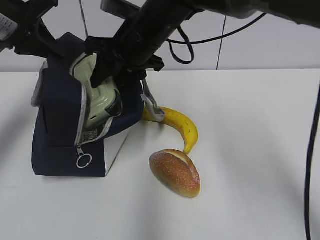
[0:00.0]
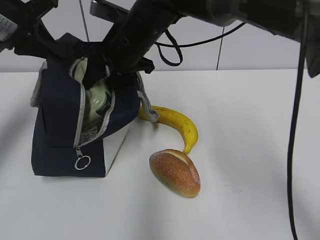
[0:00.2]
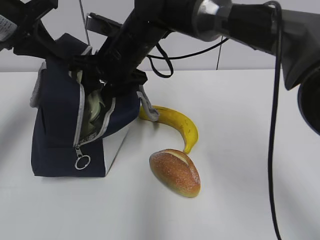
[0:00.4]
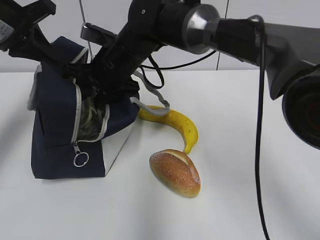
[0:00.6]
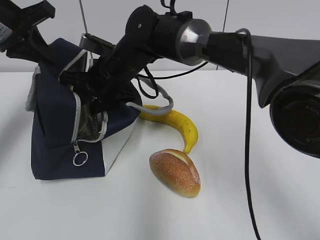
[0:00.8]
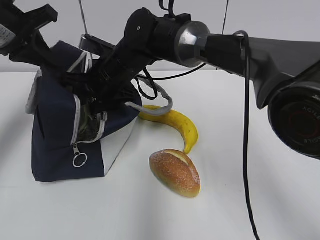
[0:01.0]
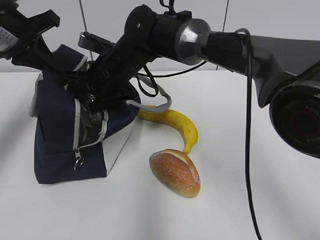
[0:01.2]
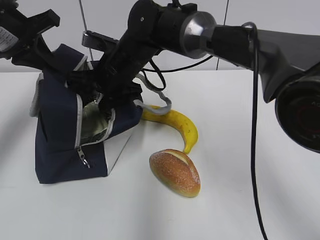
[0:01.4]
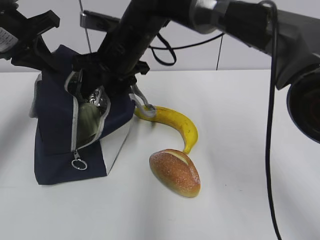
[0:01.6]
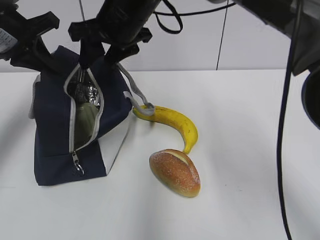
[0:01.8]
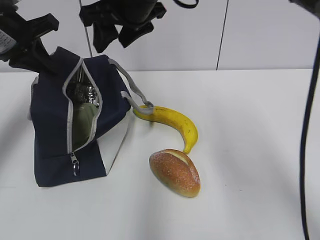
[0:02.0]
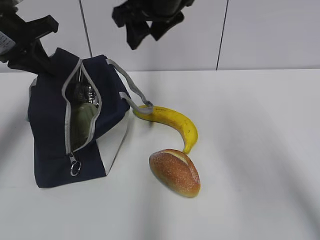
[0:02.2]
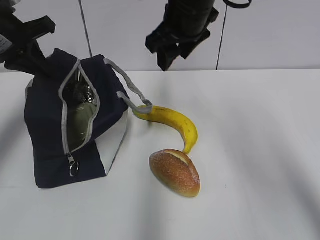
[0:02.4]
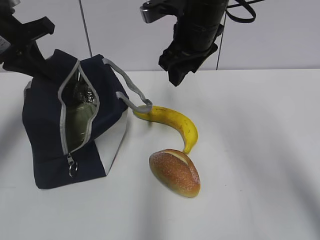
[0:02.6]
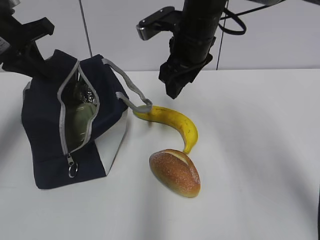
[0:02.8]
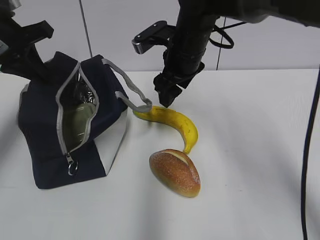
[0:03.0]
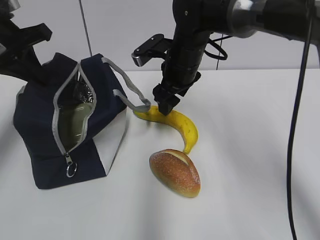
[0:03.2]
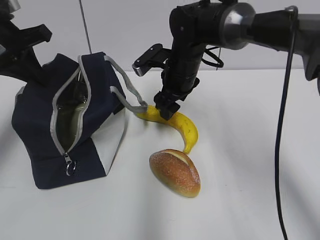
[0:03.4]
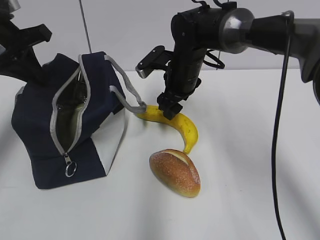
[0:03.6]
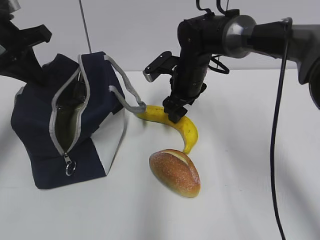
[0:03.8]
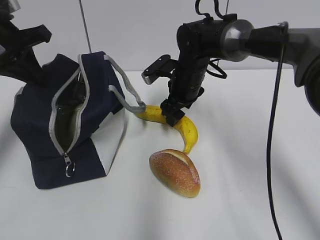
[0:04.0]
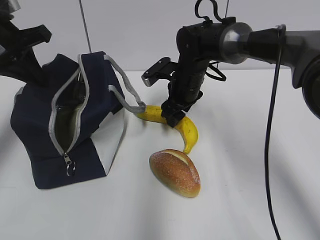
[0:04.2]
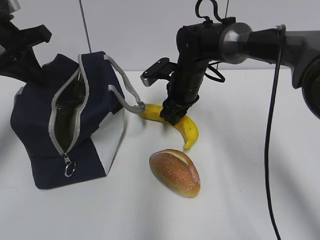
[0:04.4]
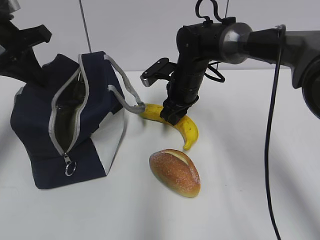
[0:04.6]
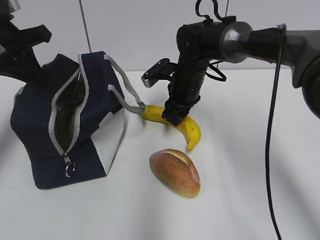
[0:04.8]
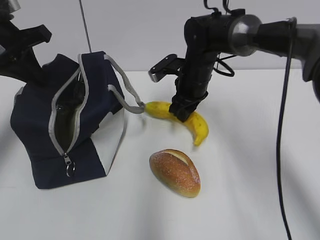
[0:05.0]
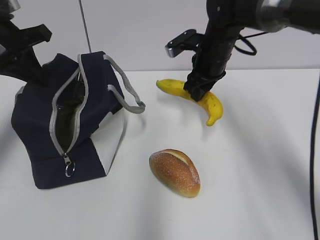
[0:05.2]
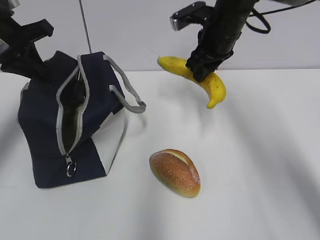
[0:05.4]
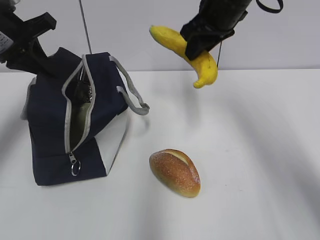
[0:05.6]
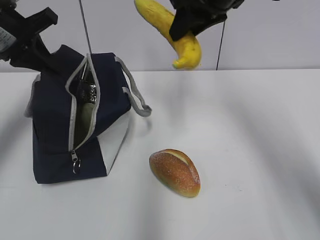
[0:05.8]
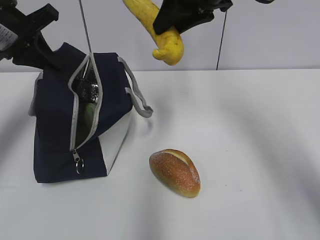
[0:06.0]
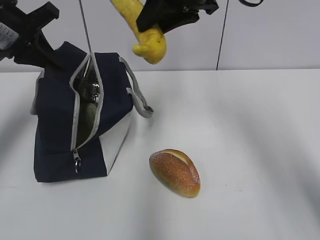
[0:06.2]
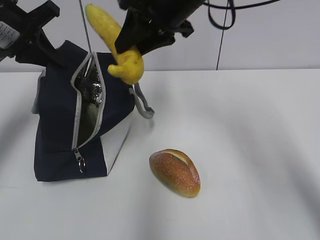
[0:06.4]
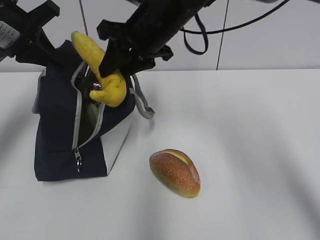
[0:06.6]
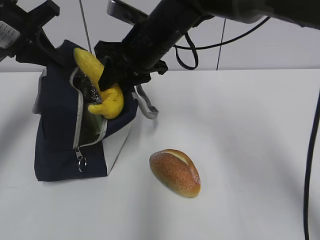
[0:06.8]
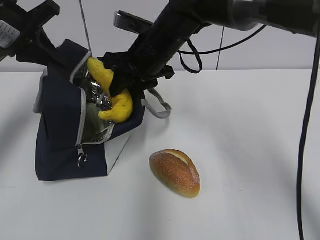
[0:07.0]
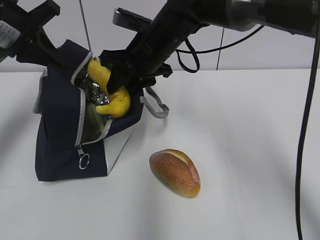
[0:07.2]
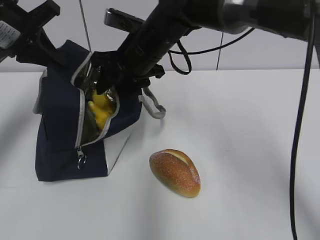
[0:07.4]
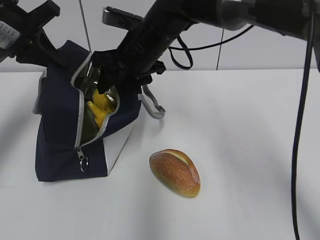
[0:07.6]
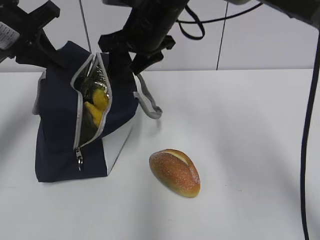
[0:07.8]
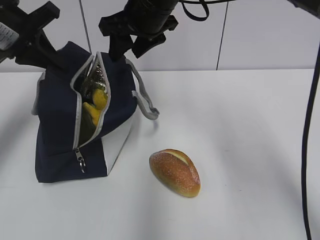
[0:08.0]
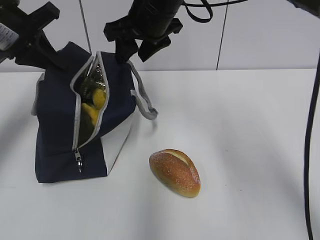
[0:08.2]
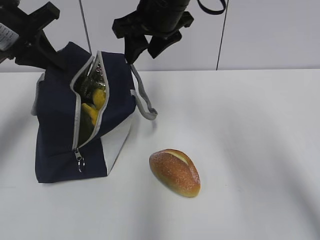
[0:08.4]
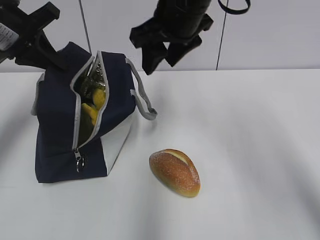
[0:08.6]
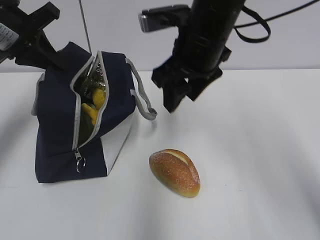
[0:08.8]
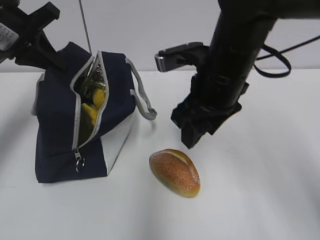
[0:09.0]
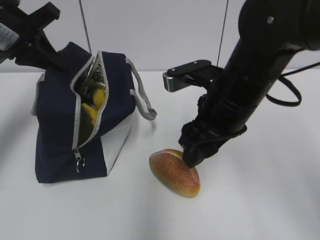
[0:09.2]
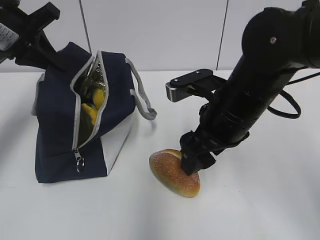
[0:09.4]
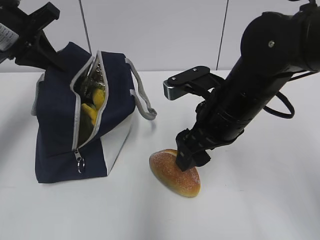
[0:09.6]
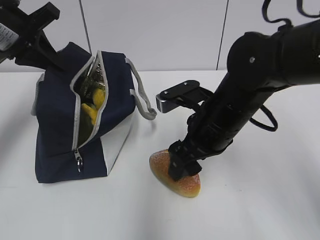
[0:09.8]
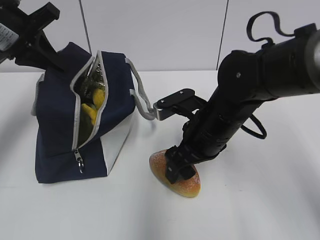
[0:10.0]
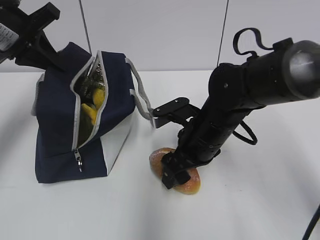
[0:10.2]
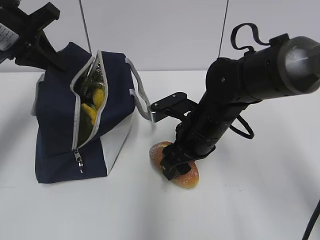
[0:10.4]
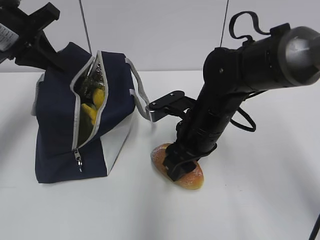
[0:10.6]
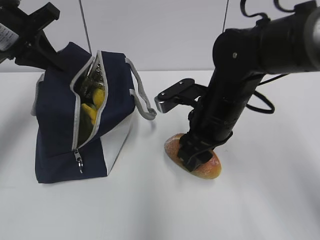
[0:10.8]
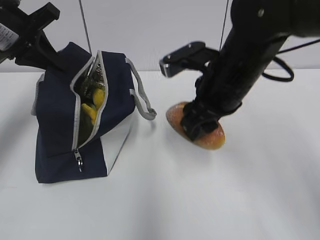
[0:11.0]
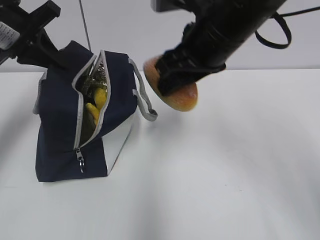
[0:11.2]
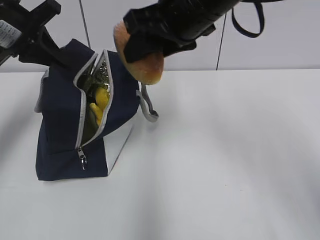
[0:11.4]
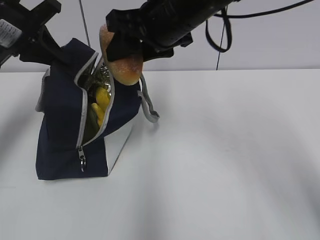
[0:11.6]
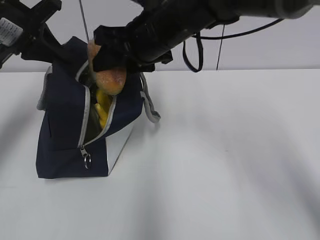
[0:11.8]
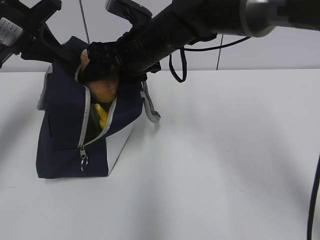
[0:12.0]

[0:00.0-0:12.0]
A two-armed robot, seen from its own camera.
0:01.6 to 0:03.0: The right gripper shifts approximately 10 cm to the right.
0:03.0 to 0:04.4: The right gripper shifts some 10 cm downward, and closes up.
0:04.4 to 0:06.0: The right gripper moves upward, approximately 20 cm.
0:06.0 to 0:07.6: The right gripper travels downward and to the left by approximately 15 cm.
0:07.6 to 0:09.0: The right gripper goes about 15 cm backward and to the right.
0:09.0 to 0:10.4: The right gripper heads downward, covering some 10 cm.
0:10.4 to 0:12.0: The right gripper is displaced upward, forward and to the left by roughly 15 cm.

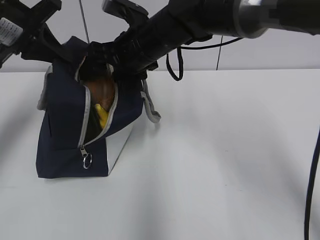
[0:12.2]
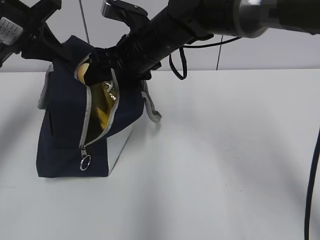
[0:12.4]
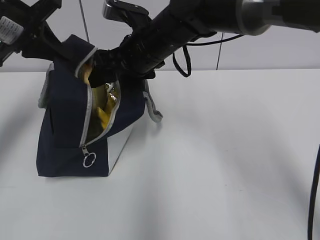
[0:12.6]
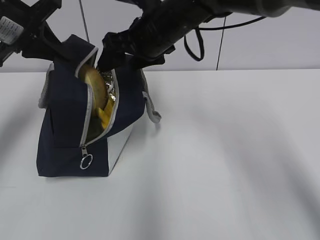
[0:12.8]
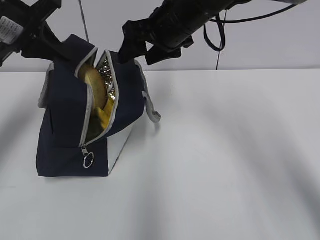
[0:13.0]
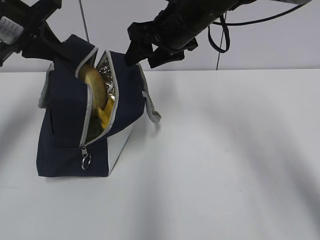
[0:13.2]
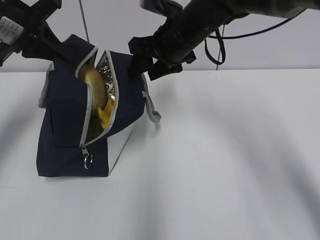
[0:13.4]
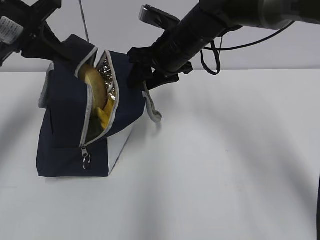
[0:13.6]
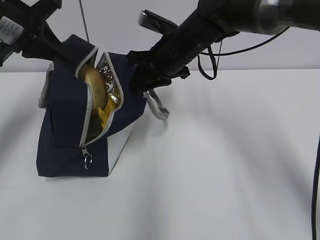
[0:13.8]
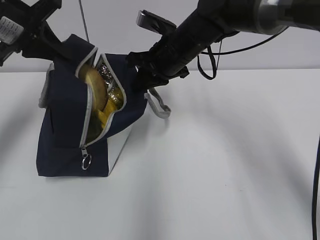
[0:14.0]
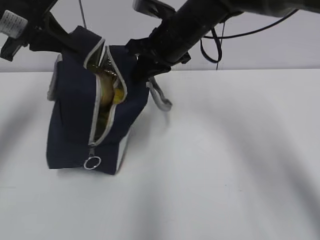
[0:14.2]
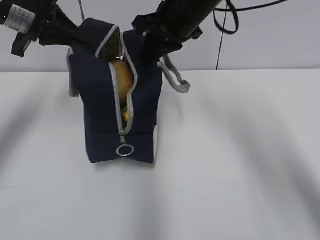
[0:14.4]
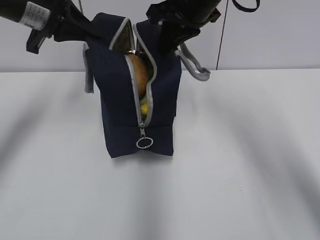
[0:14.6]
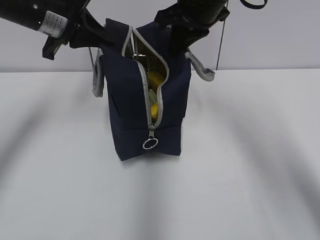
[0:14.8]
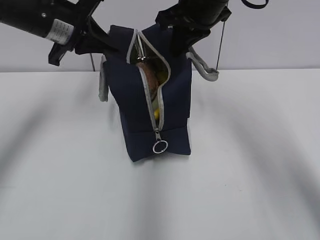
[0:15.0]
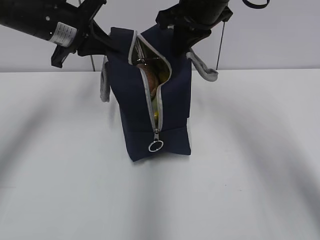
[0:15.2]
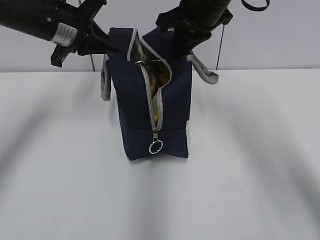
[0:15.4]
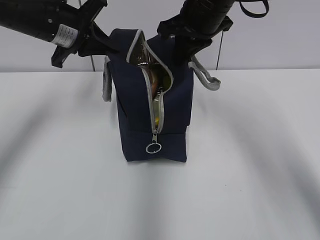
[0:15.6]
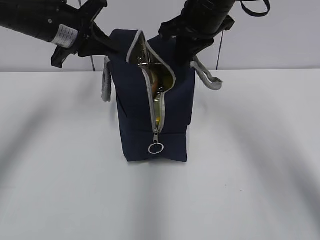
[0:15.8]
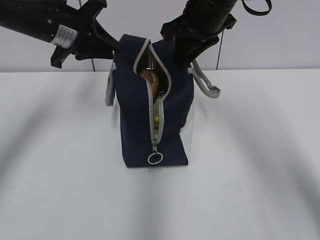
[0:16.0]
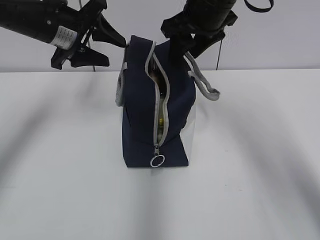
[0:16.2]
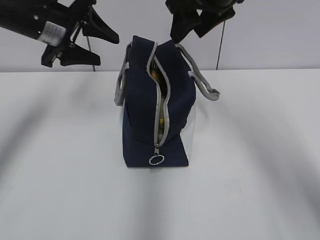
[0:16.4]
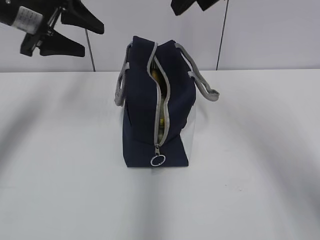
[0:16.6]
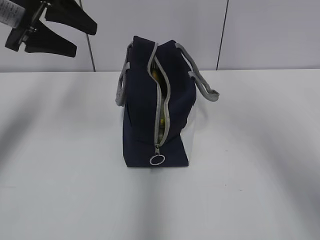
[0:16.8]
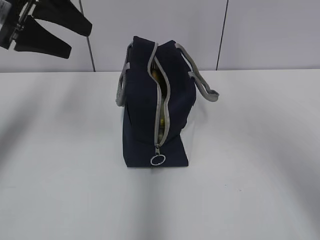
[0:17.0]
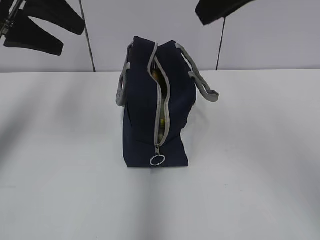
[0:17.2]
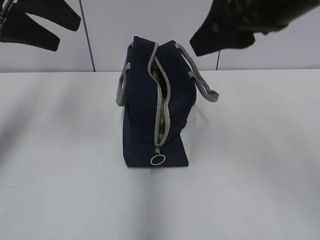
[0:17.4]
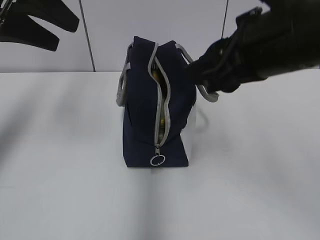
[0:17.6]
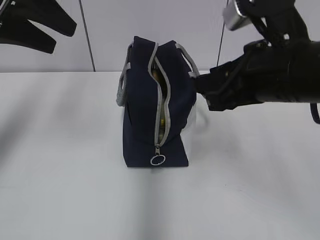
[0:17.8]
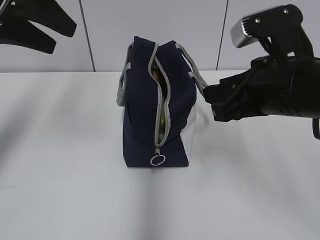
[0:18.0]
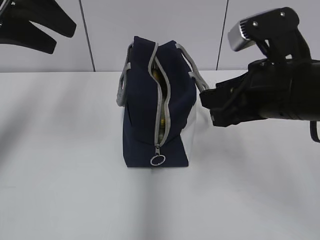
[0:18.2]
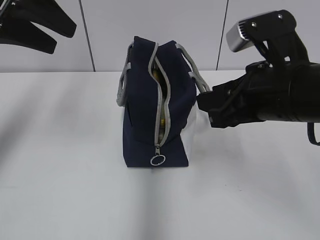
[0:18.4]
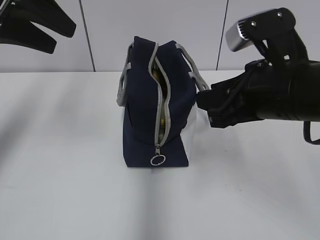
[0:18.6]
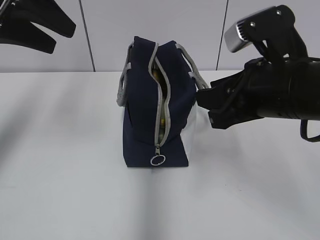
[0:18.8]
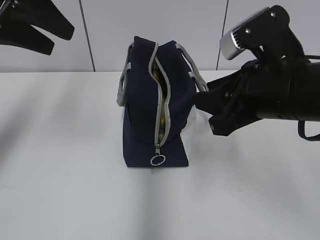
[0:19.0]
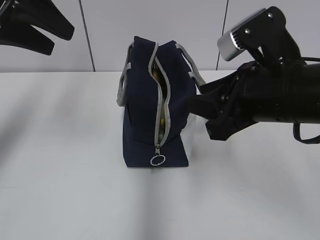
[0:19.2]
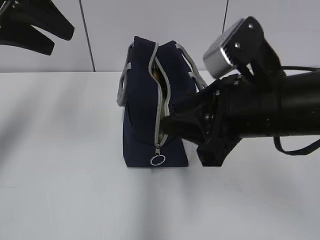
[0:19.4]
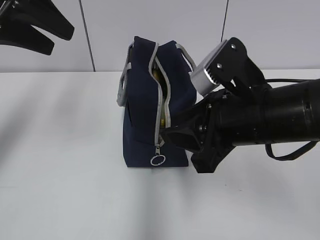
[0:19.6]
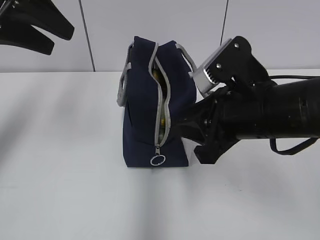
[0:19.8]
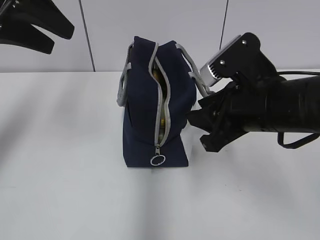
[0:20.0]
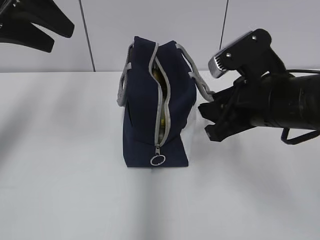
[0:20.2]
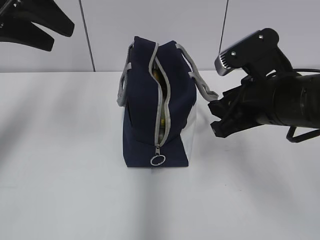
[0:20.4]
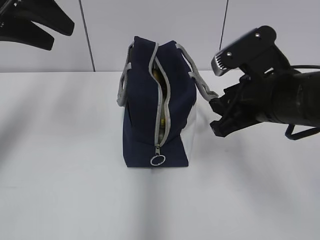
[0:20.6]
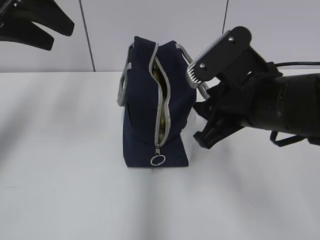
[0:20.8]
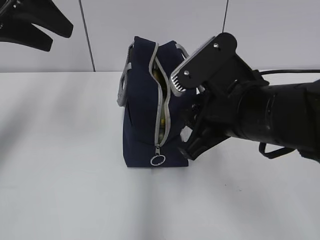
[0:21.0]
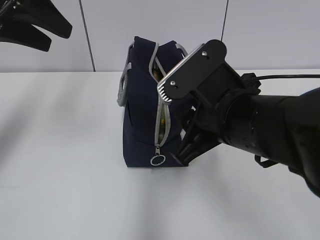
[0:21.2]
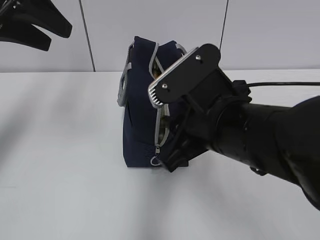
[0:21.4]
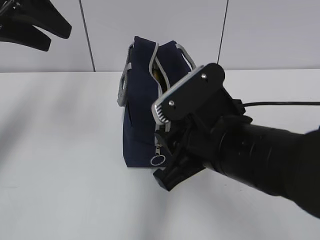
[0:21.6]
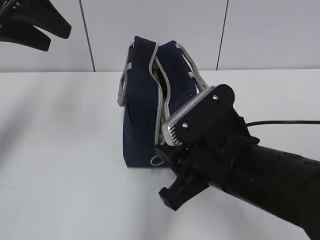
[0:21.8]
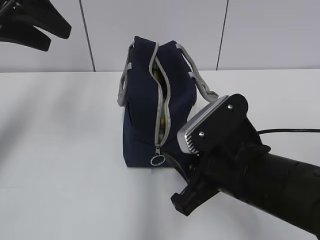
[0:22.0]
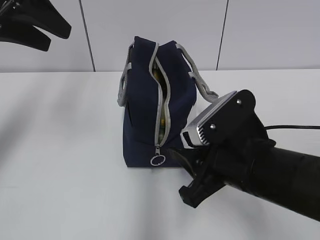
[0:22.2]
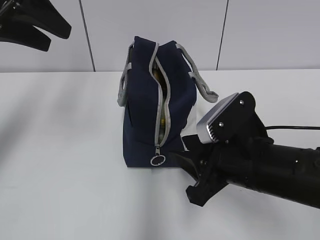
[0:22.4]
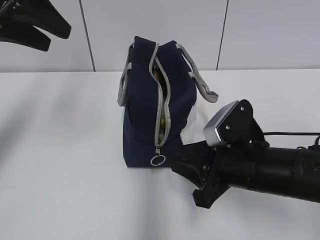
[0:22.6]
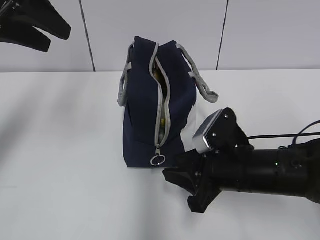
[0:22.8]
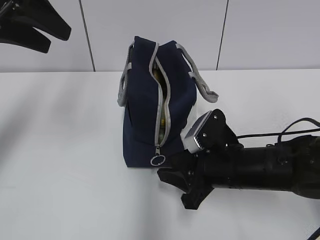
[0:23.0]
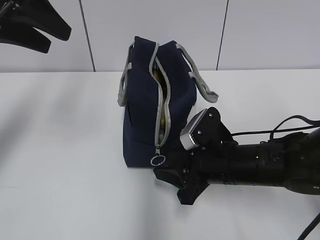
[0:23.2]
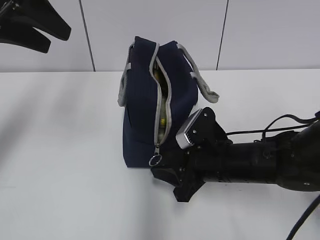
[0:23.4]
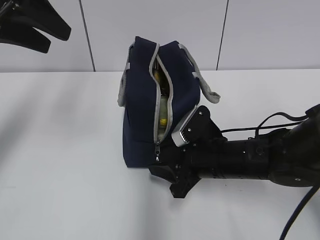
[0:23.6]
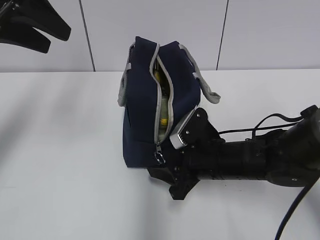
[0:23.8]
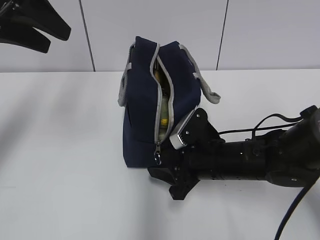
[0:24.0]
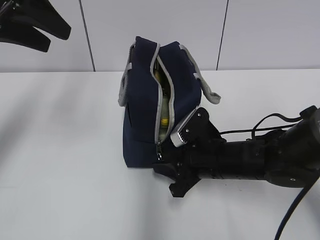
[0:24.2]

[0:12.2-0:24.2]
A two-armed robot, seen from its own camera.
0:12.2 to 0:13.8: The right gripper moves to the right, approximately 5 cm, and closes.
0:13.8 to 0:15.2: The right gripper shifts some 10 cm upward. The left gripper travels to the right by approximately 5 cm.
0:15.2 to 0:16.6: The left gripper opens up. The right gripper travels upward by some 5 cm, and opens.
0:16.6 to 0:18.2: The left gripper goes some 10 cm backward and upward, while the right gripper is displaced downward and backward by some 20 cm.
0:21.2 to 0:22.6: The right gripper is displaced downward by about 10 cm.
0:22.6 to 0:24.2: The right gripper heads forward and downward, covering roughly 10 cm.
